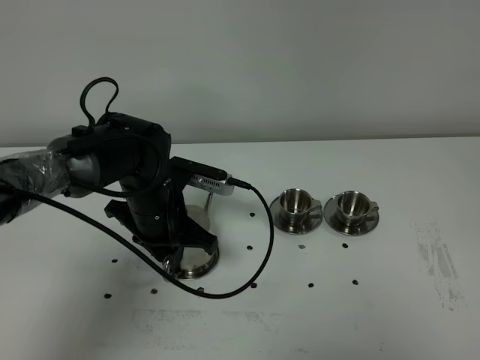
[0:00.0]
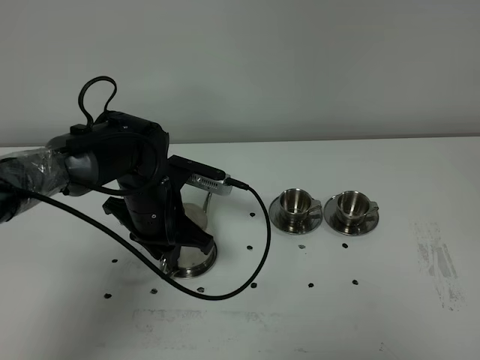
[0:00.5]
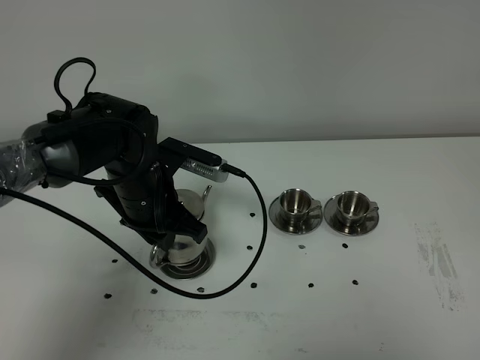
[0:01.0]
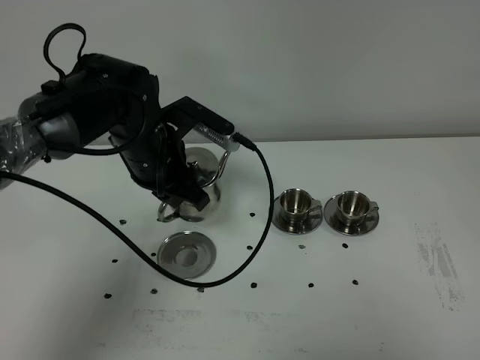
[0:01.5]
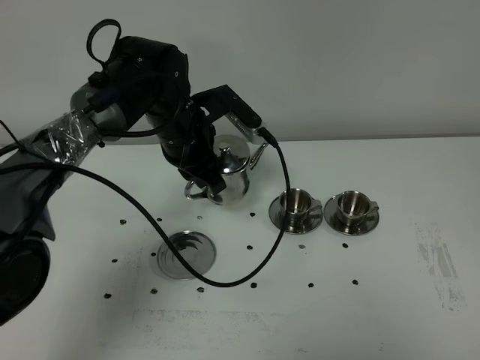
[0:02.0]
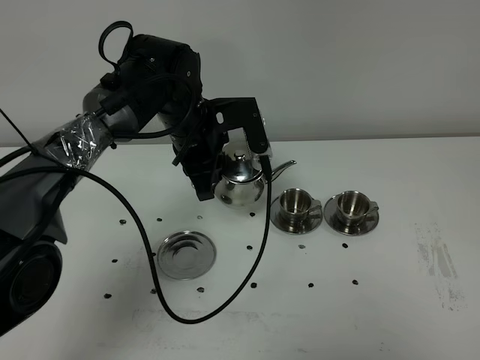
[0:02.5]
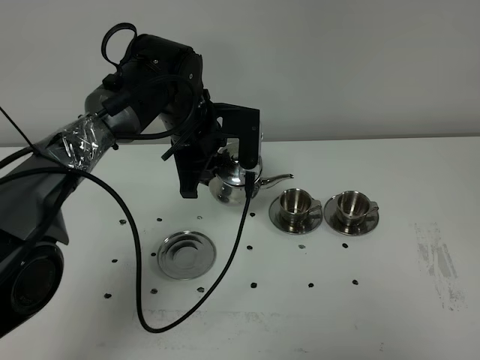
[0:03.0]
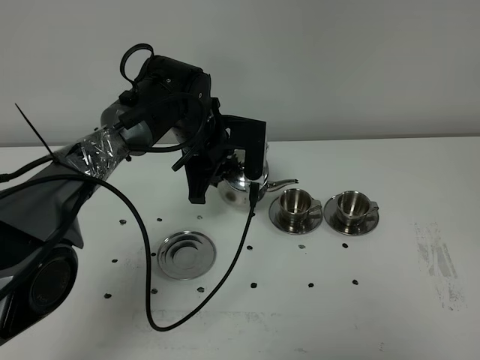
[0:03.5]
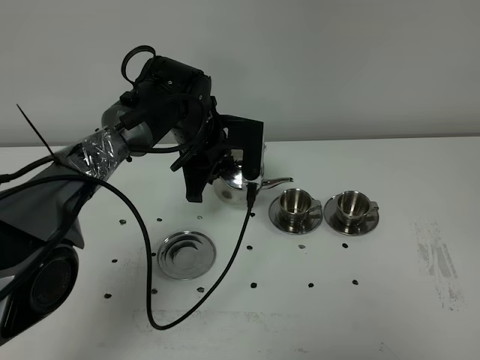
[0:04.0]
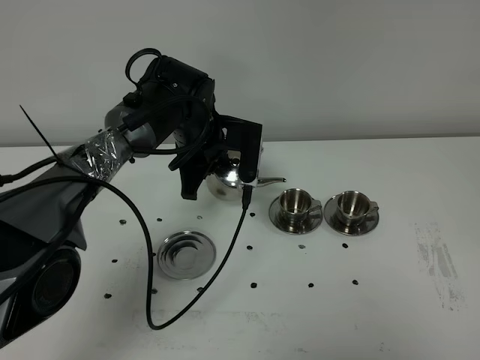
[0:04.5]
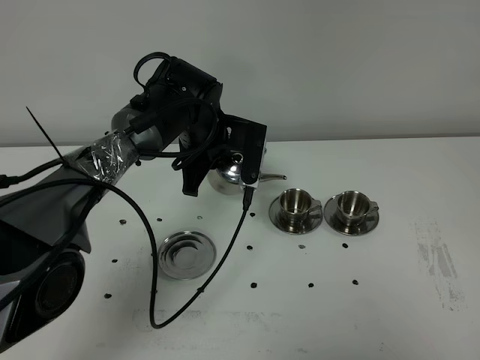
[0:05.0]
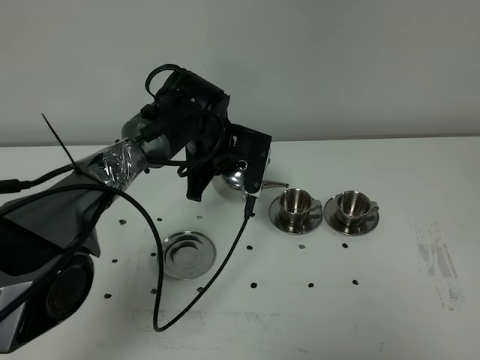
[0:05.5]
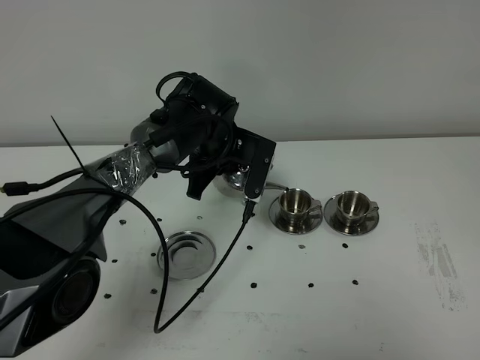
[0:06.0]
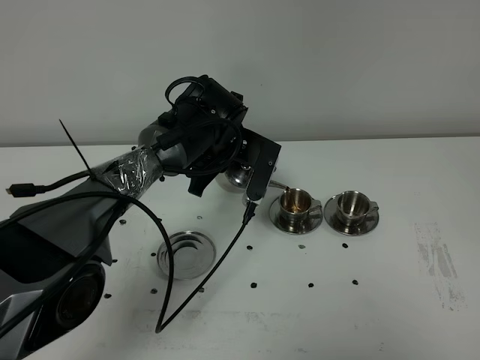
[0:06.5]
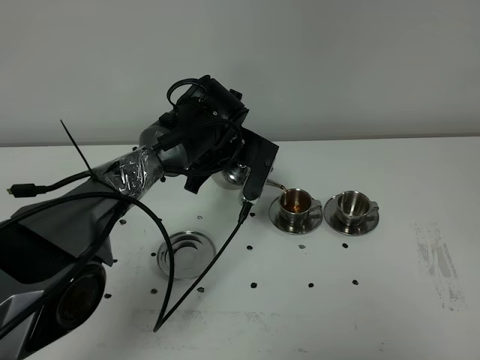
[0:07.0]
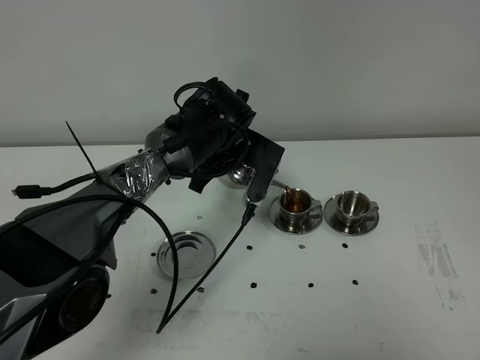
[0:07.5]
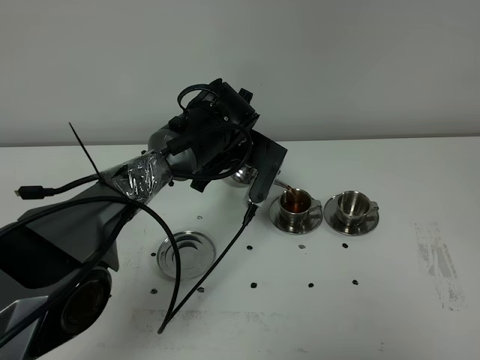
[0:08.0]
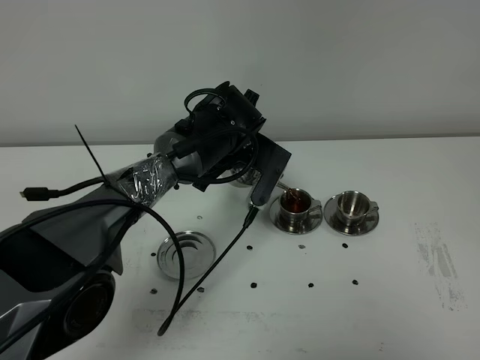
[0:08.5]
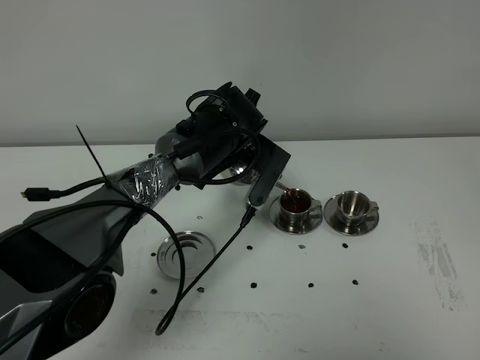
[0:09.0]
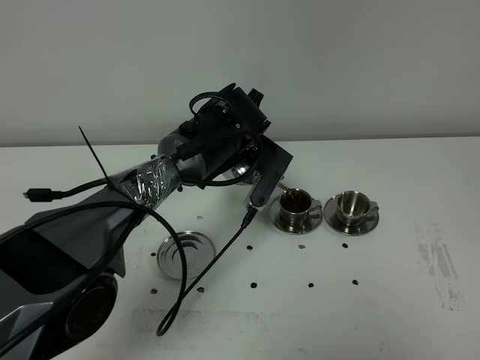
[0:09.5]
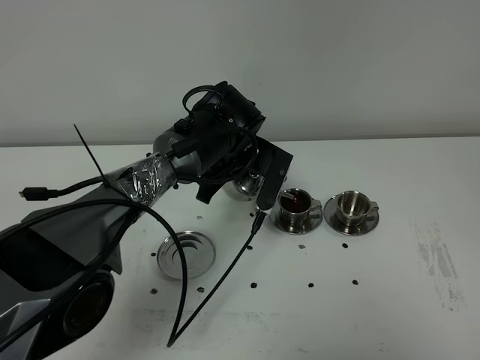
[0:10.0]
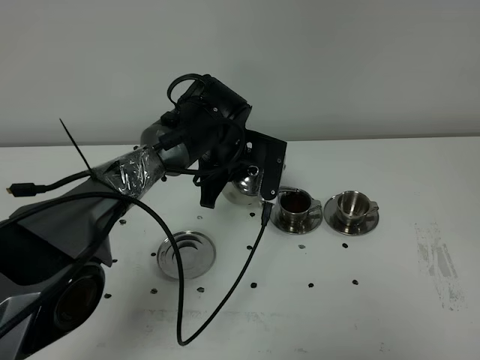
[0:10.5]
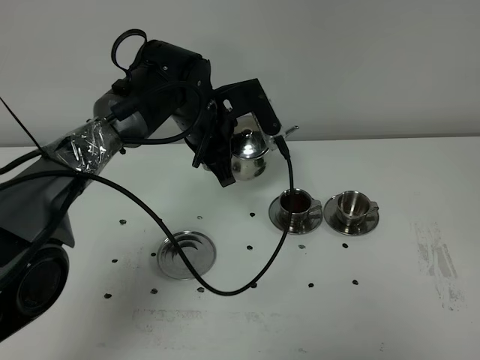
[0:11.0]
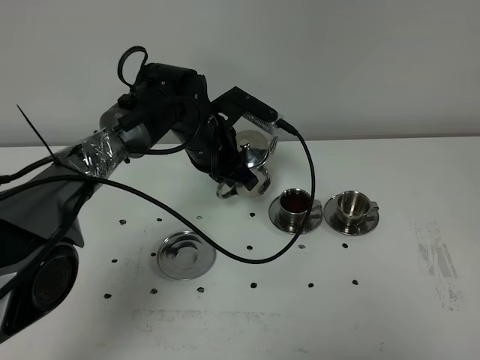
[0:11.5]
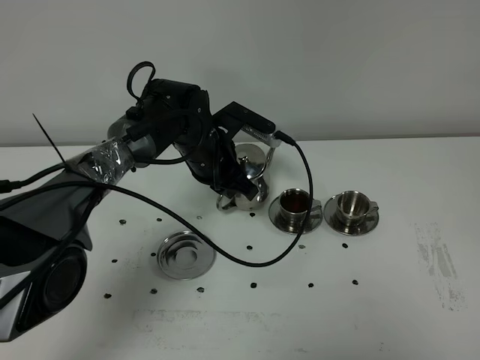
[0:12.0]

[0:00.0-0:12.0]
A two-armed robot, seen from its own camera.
Task of the whole recording: grasp the stainless steel teapot and pour the tea into the two stainless steel teacups one by one, put the stainless steel teapot back in its original place.
0:00.0 to 0:02.0: The left gripper moves forward and upward, approximately 10 cm.
0:04.0 to 0:06.0: The grippers stay close to where they were, moving slightly.
0:06.0 to 0:10.0: The grippers stay close to where they were, moving slightly.
0:10.0 to 0:12.0: The left gripper ends up roughly 5 cm from where it was.

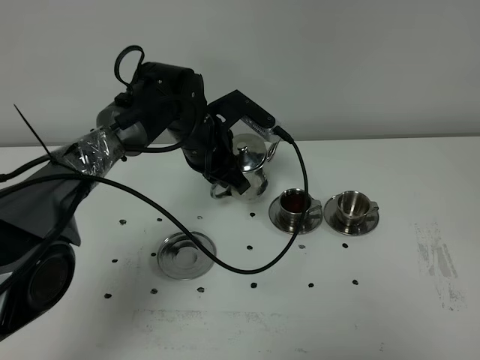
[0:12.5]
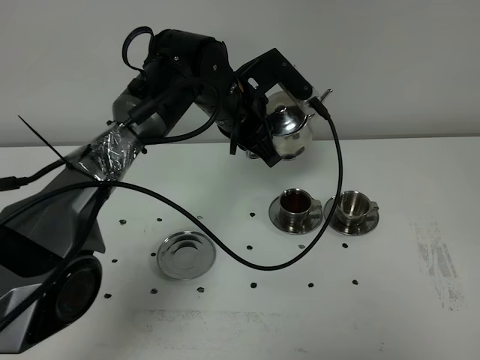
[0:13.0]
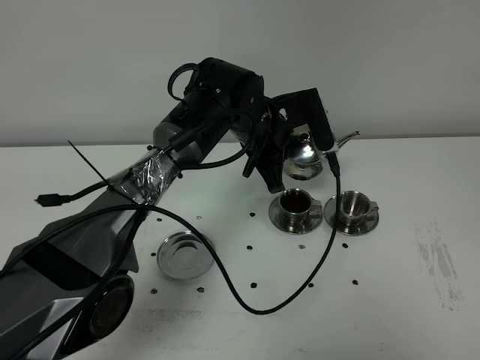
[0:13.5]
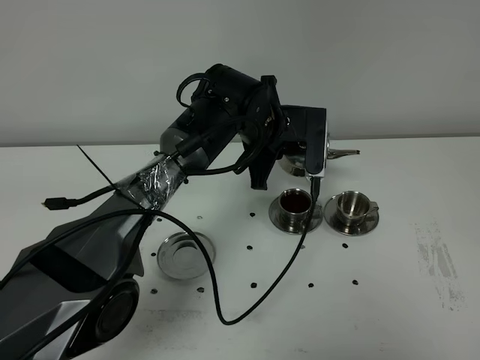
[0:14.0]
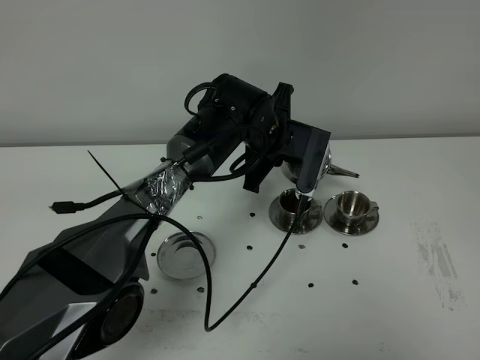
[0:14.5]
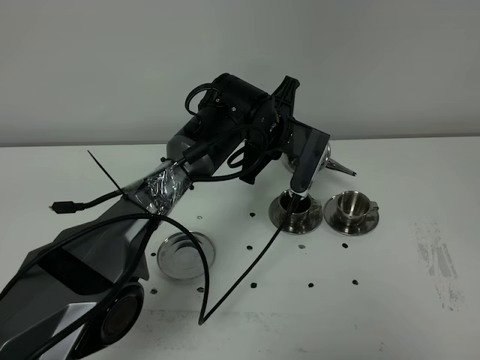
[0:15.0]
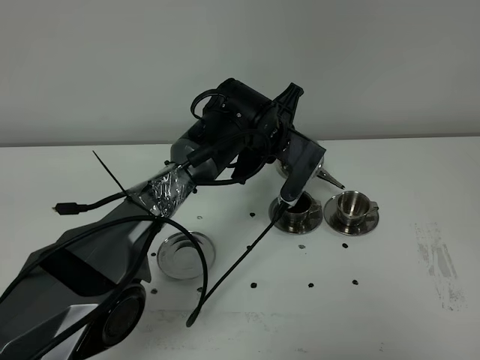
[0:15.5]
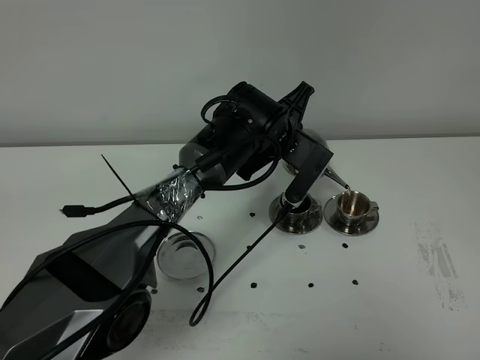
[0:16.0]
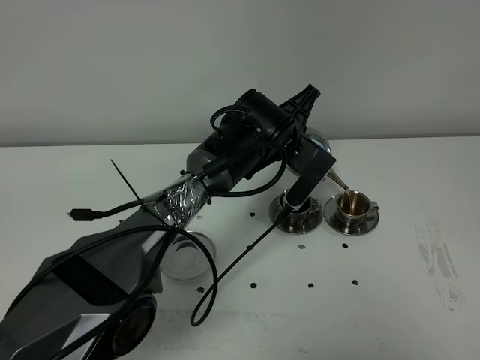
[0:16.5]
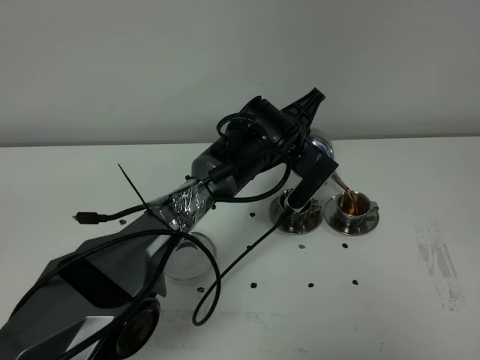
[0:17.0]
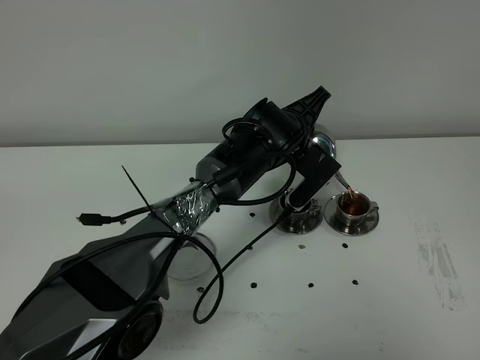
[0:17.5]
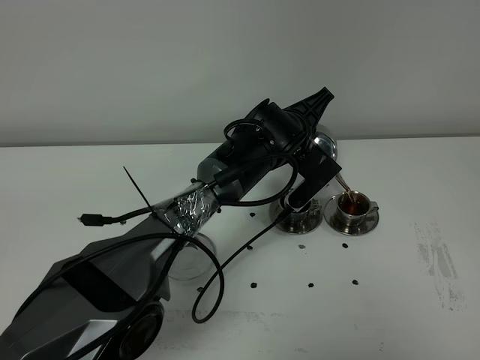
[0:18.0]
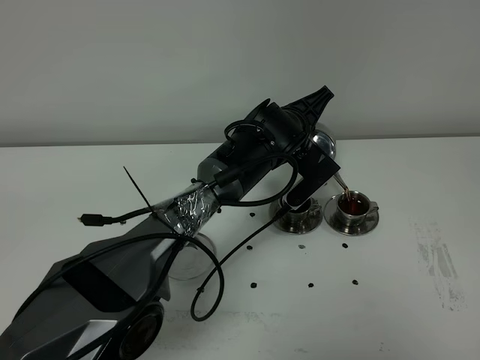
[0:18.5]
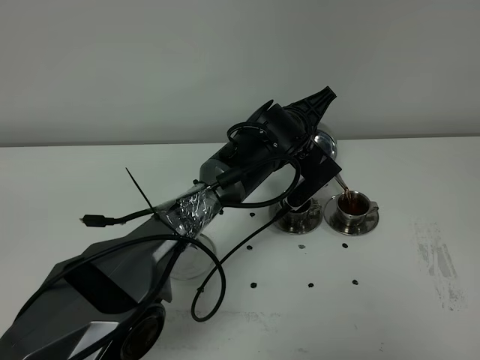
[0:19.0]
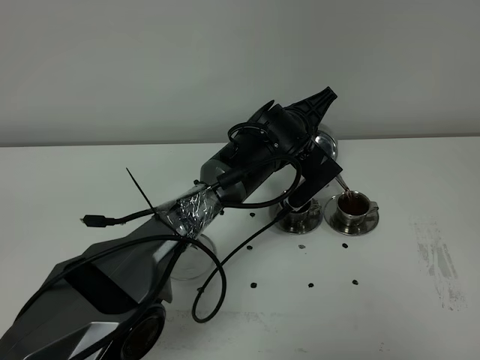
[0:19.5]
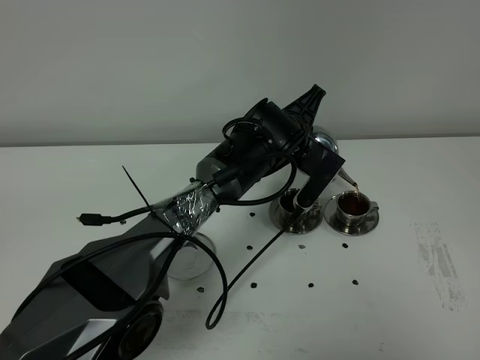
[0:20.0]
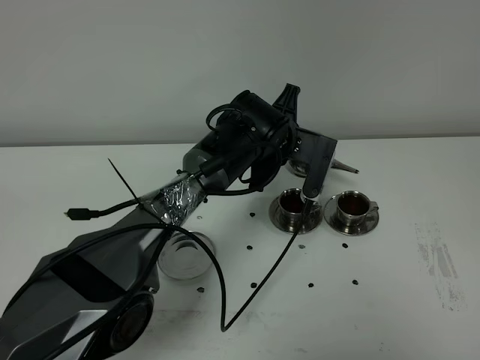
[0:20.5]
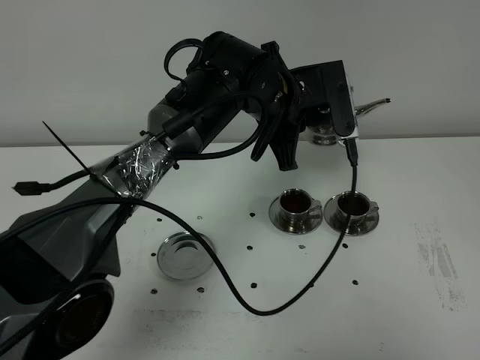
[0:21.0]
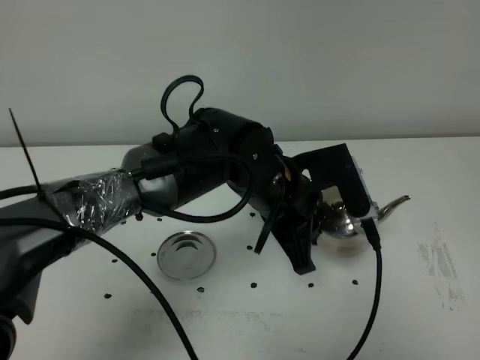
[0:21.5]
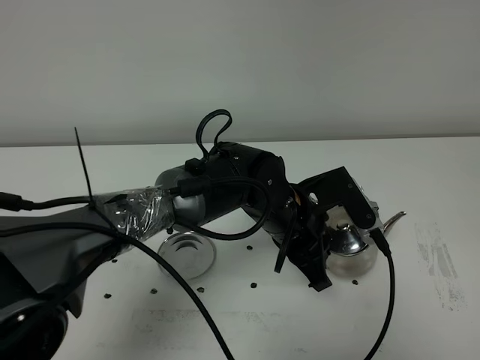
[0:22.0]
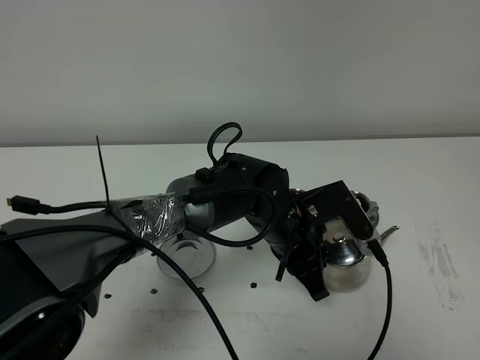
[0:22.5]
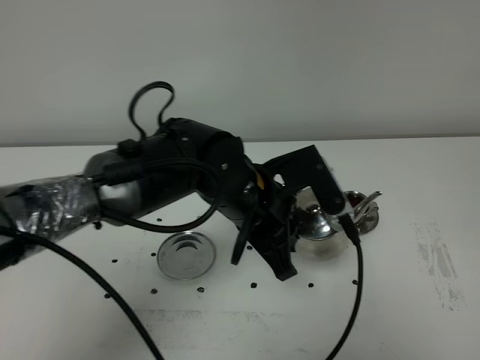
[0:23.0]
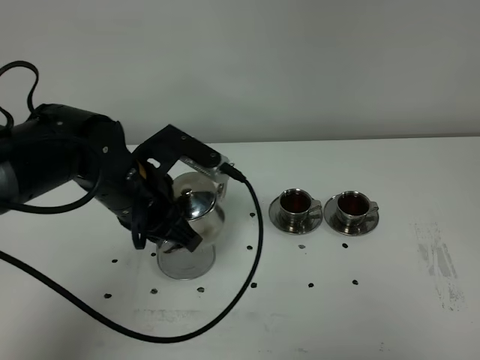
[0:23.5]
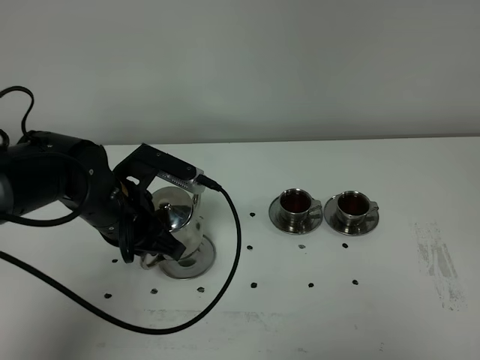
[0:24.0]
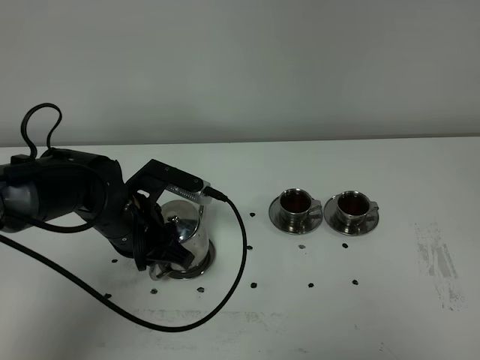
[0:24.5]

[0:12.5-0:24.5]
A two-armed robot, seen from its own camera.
Task of the whole recording: grasp the stainless steel teapot and pour the tea into the two stainless steel teacups one by one, put the stainless steel teapot back in its original place.
Step, 0:12.5 to 0:20.0: Pour tea into the teacup with the left gripper.
0:12.5 to 0:14.5: The left gripper travels to the right by approximately 10 cm.
0:16.5 to 0:18.5: There are only small adjustments of the grippers.
0:20.5 to 0:22.5: The left gripper travels backward by roughly 15 cm.
0:22.5 to 0:24.5: The left gripper heads to the left, covering about 20 cm.

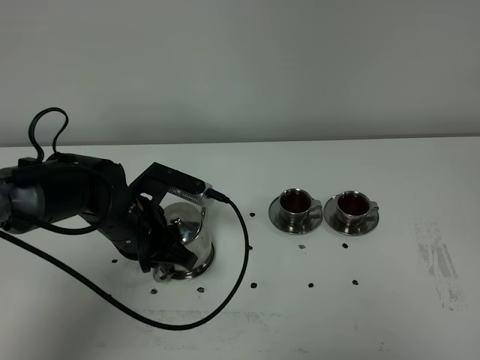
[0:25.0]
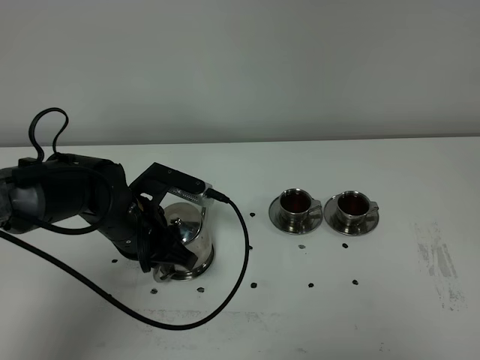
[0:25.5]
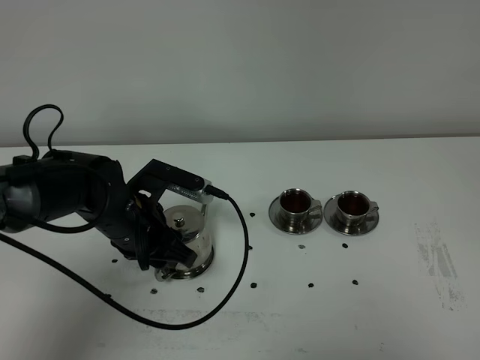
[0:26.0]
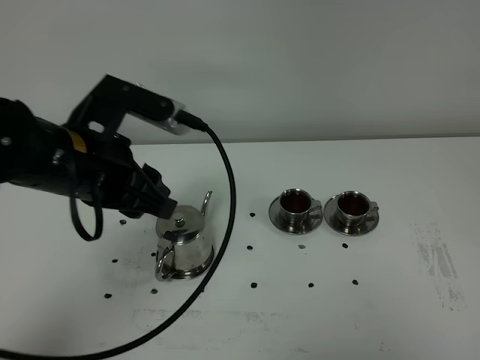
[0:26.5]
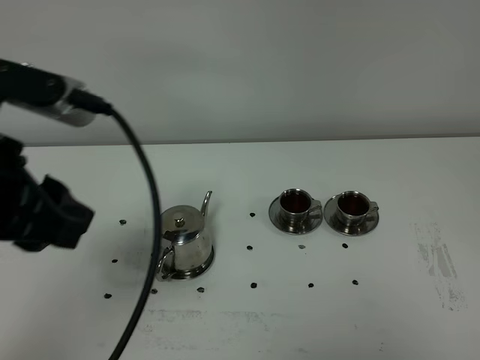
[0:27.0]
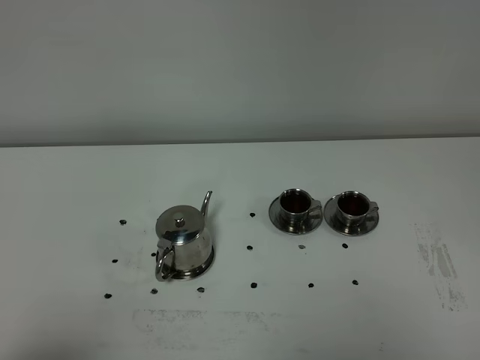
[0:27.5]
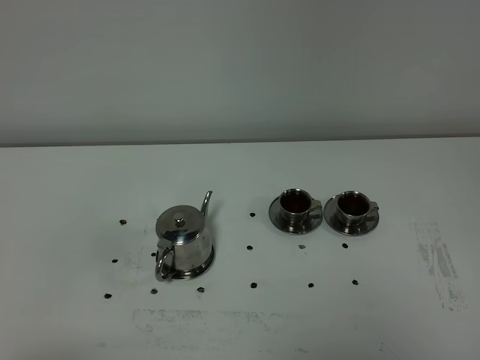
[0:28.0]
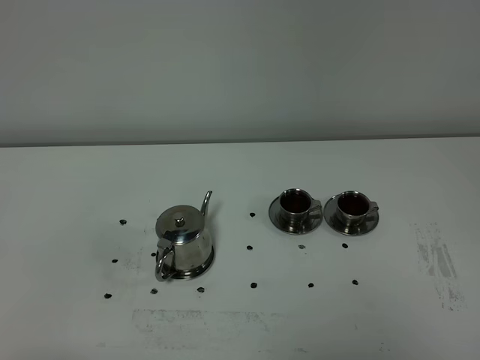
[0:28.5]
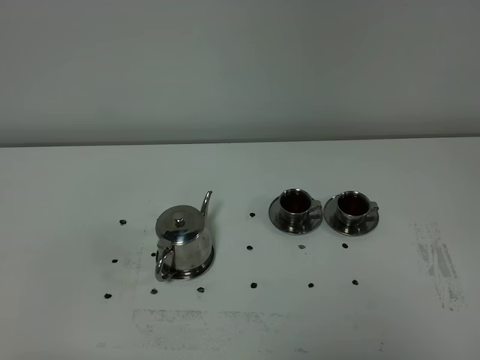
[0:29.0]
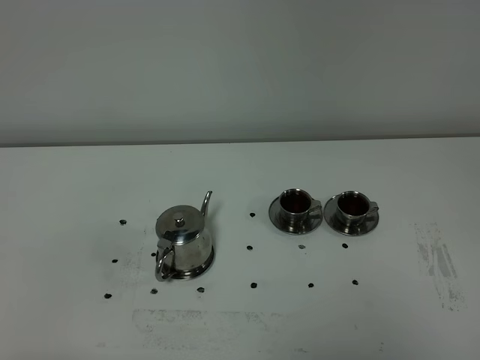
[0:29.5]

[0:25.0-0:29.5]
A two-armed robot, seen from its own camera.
Task of the whole recording: grasp the stainless steel teapot and pour the tea into the two stainless steel teacups one by one, put the stainless steel teapot back in its original place.
0:25.0 to 0:27.0: The left gripper moves upward and backward, approximately 30 cm, and opens.
0:27.0 to 0:29.5: The left gripper moves backward, downward and to the left, some 25 cm.
